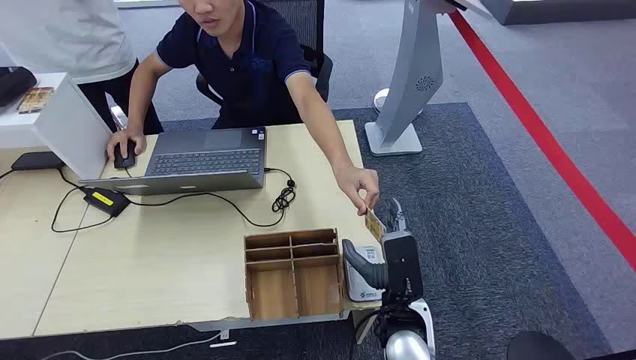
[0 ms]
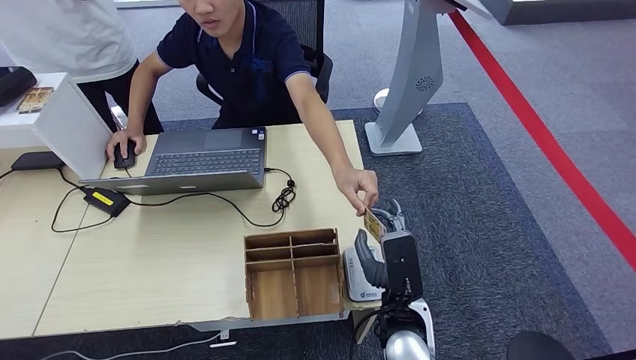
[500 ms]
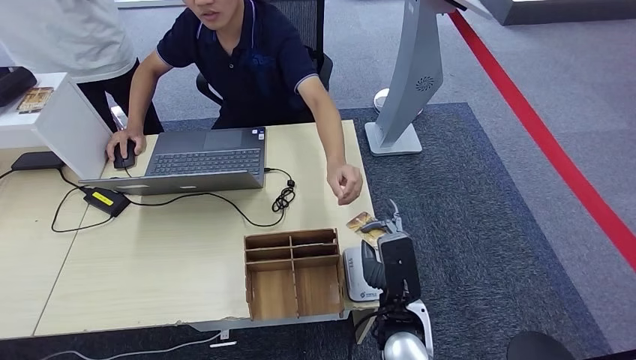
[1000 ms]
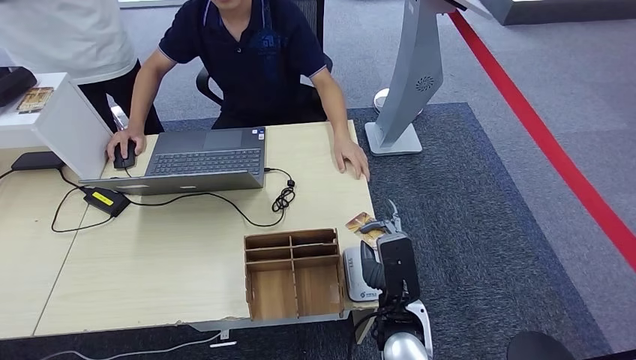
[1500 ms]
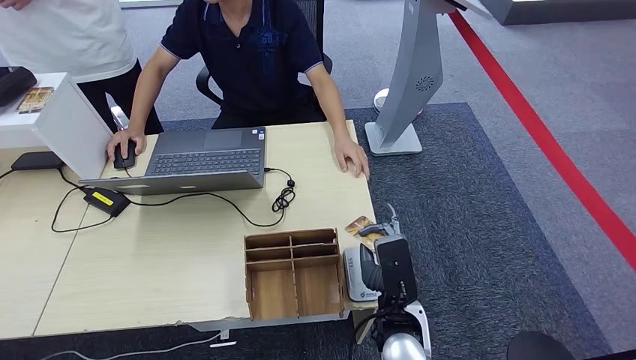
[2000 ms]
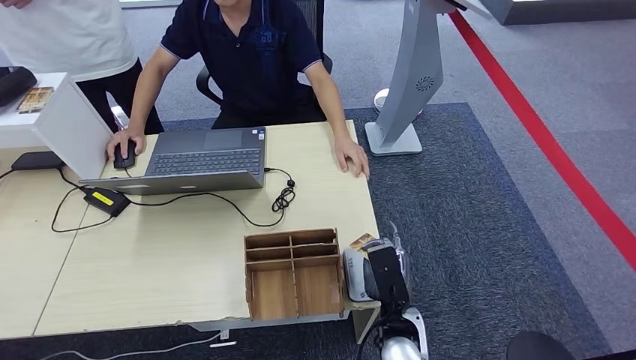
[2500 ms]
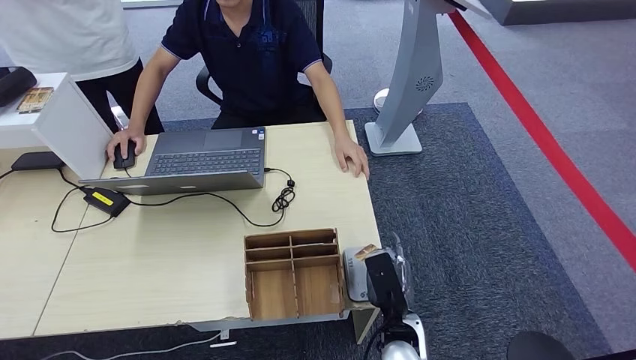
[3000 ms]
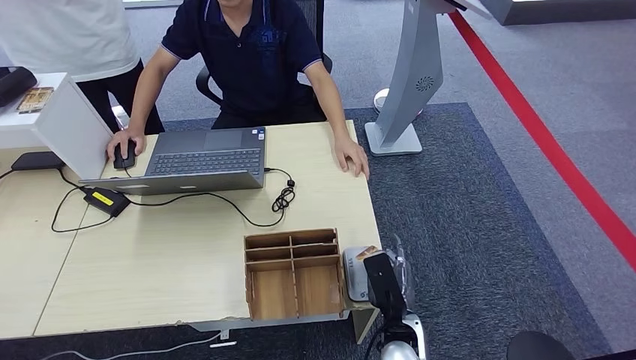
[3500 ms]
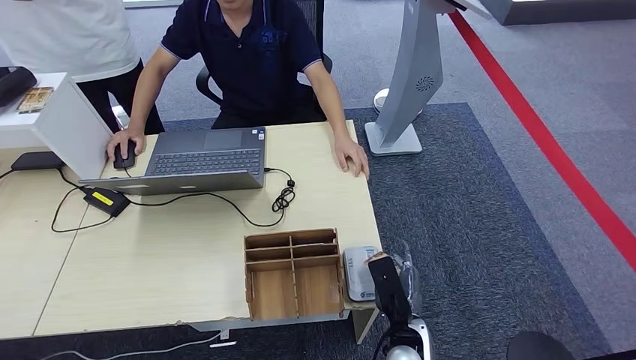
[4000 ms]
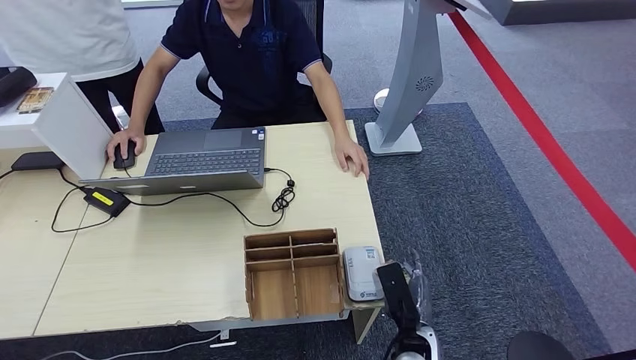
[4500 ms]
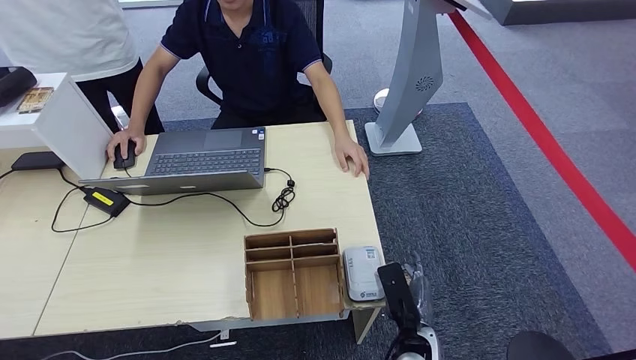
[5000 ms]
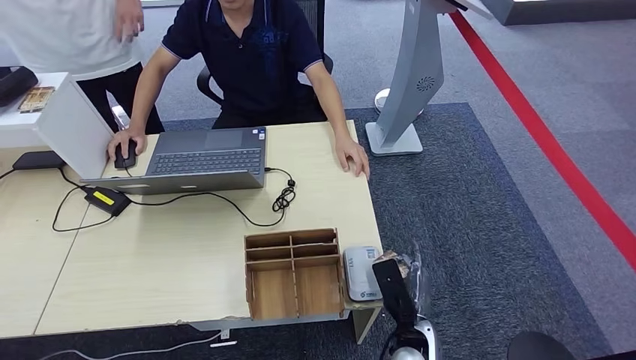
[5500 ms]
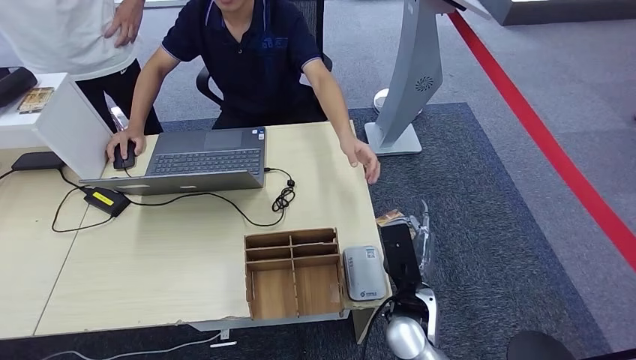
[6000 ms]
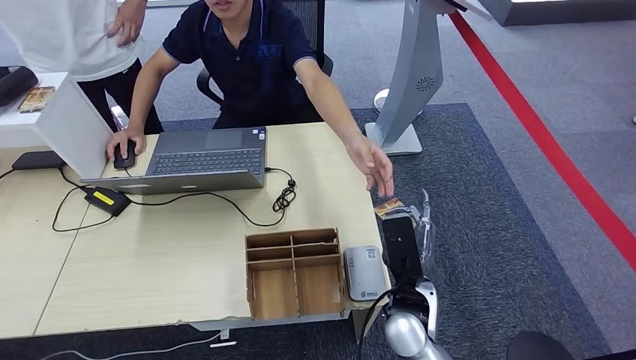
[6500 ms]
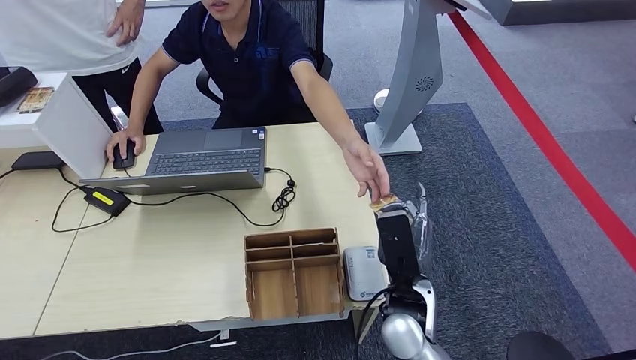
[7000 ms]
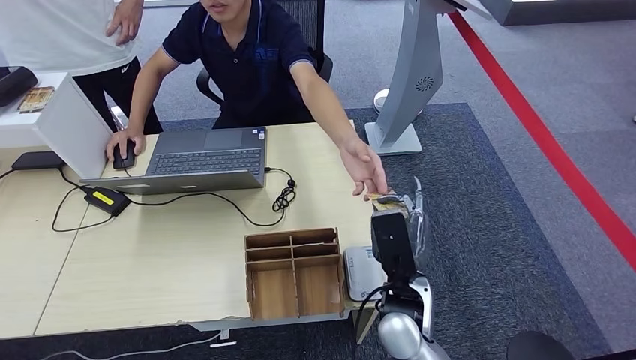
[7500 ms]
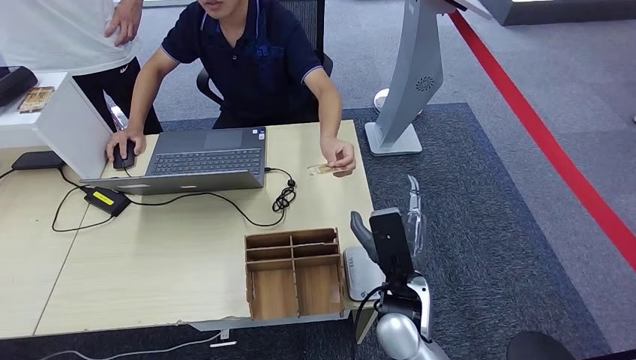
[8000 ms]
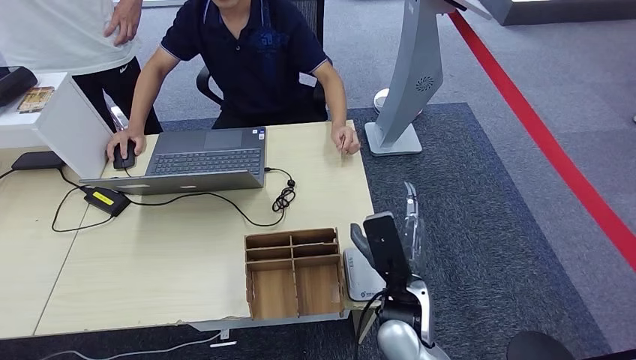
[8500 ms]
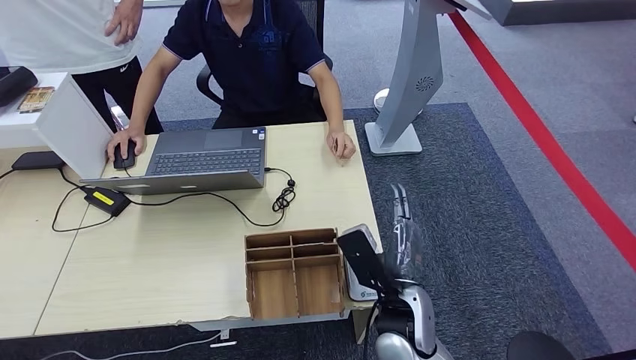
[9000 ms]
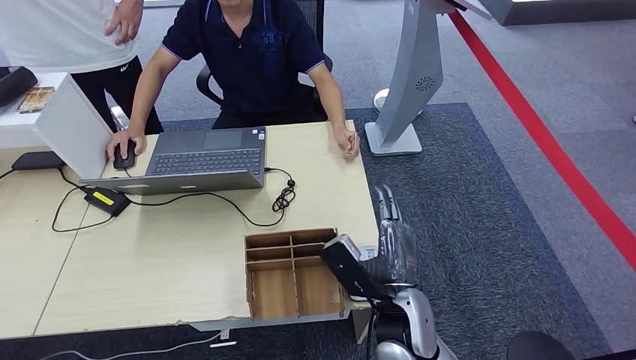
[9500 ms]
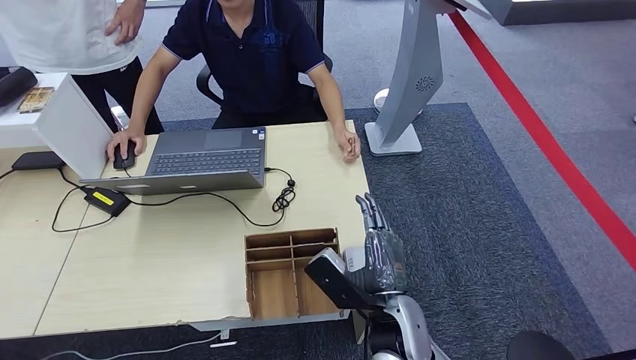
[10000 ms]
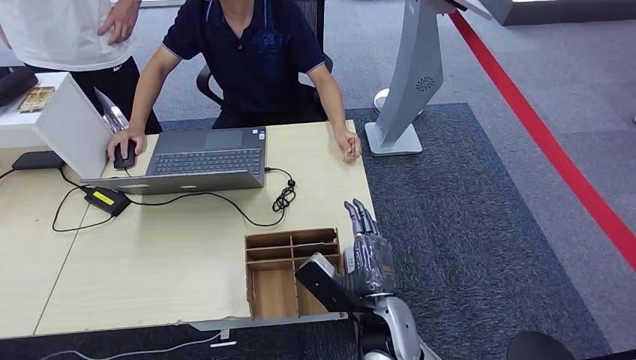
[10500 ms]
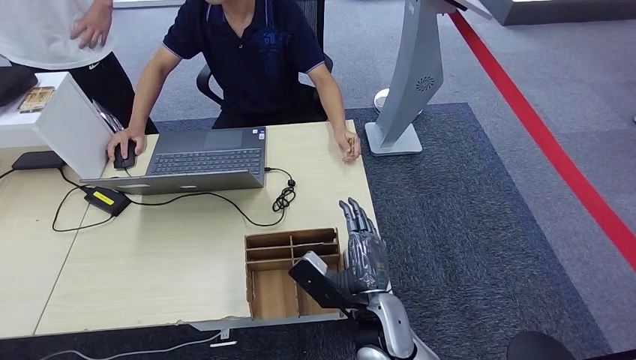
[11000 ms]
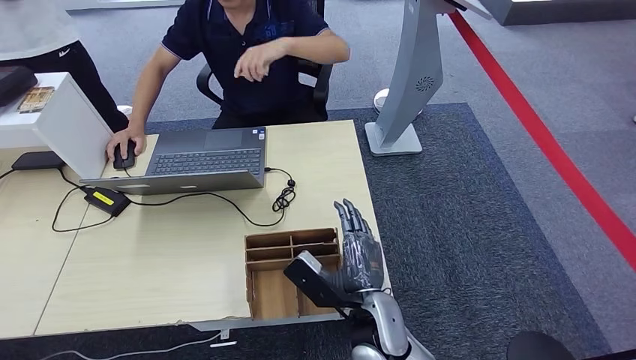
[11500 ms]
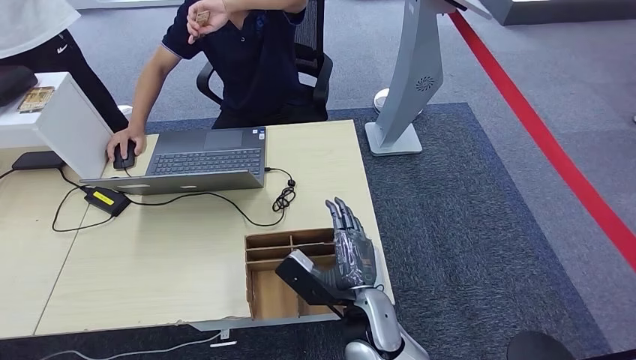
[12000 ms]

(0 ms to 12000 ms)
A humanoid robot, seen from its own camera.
Step, 0 ms - 1000 ms: Take the ID card from the person's hand.
Step, 1500 ms - 6000 ms: Place the ID card on the card reader.
Step, 6500 ms - 9500 ms: Hand the ID card to the person.
2000 ms - 4000 ms: The right hand goes approximately 10 cm downward.
4000 ms - 6000 ms: The right hand is displaced upward by roughly 5 cm. The left hand moves to the right, approximately 15 cm.
6000 ms - 8000 ms: The right hand changes place by about 5 cm.
10000 ms - 12000 ms: The hands move only a little.

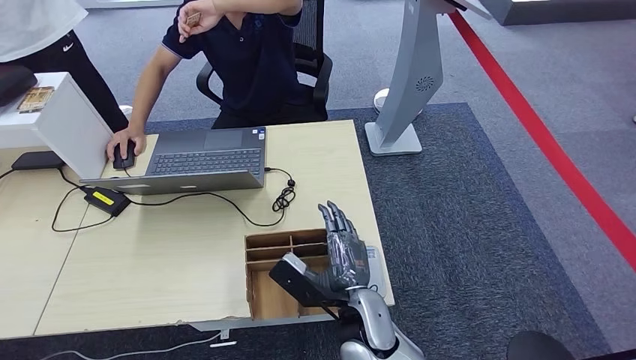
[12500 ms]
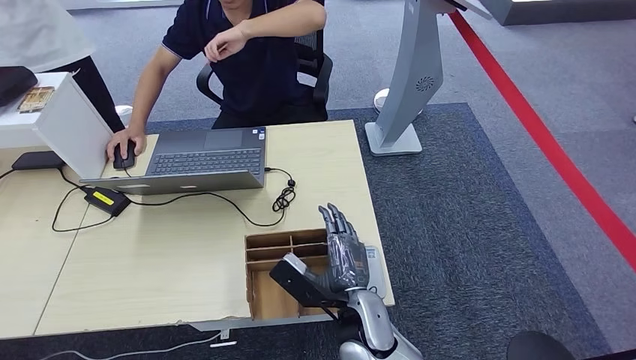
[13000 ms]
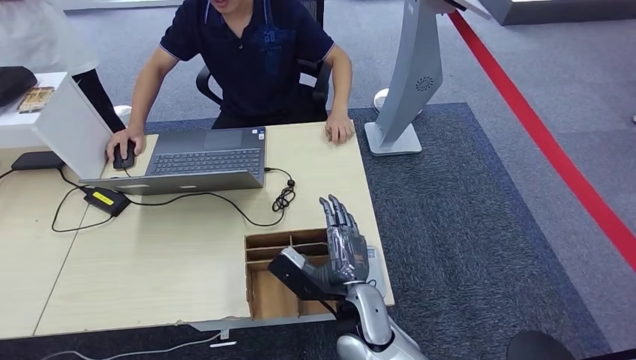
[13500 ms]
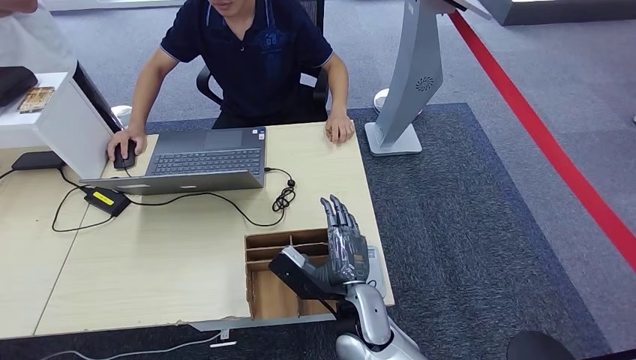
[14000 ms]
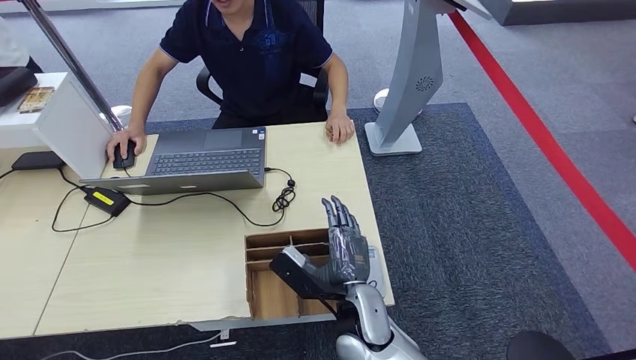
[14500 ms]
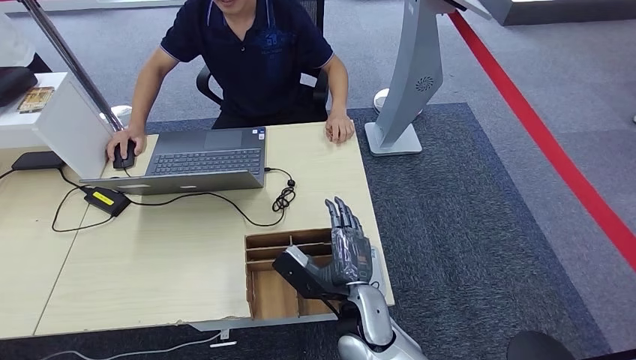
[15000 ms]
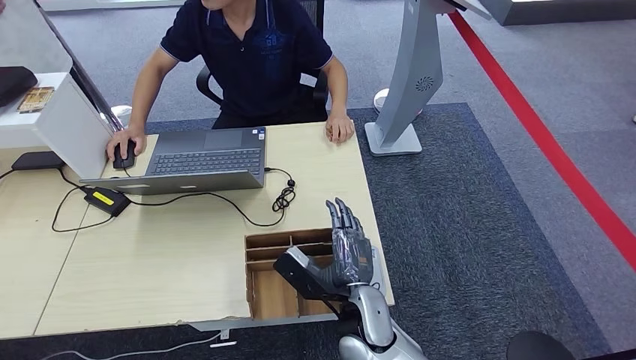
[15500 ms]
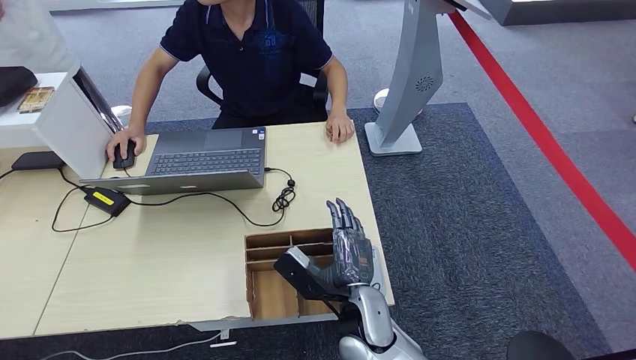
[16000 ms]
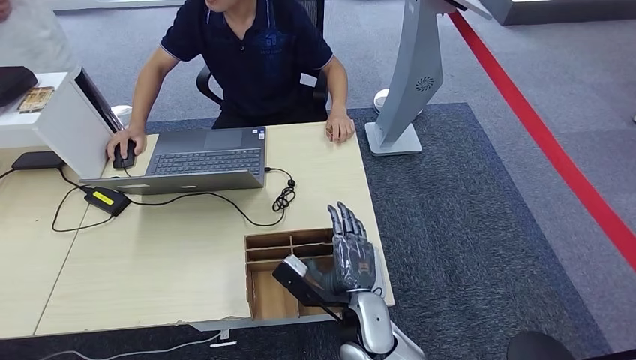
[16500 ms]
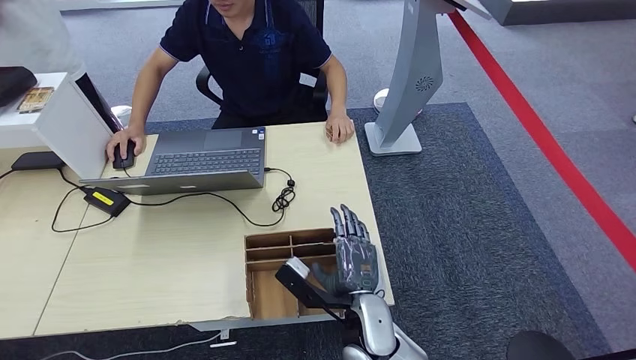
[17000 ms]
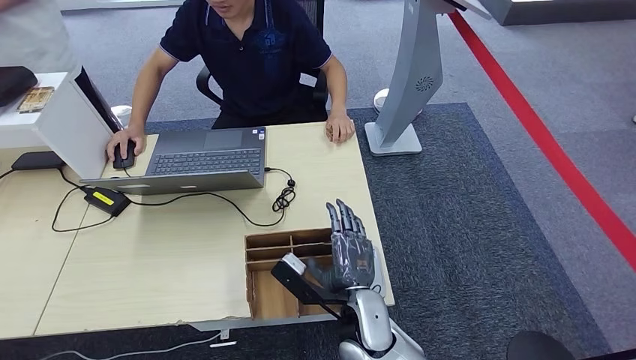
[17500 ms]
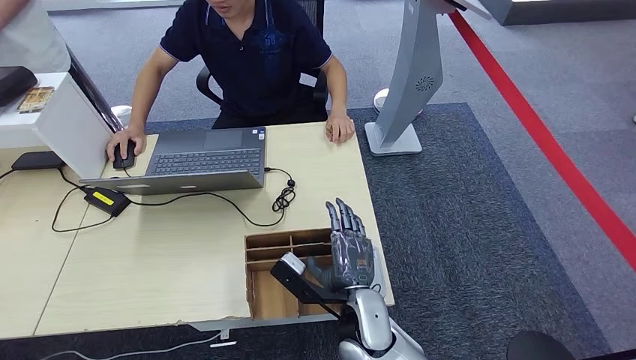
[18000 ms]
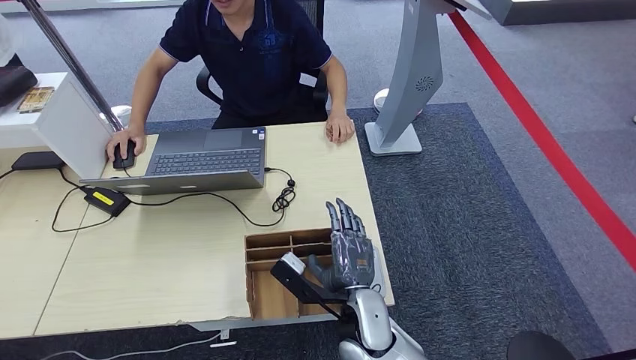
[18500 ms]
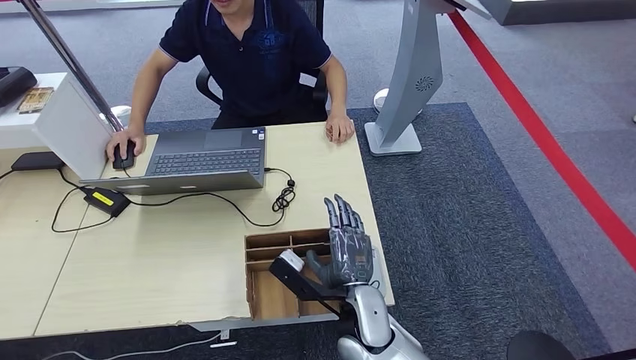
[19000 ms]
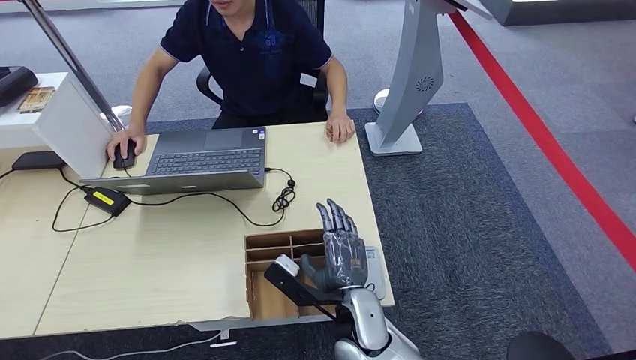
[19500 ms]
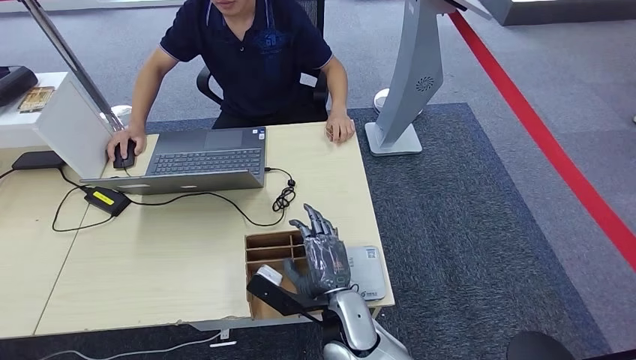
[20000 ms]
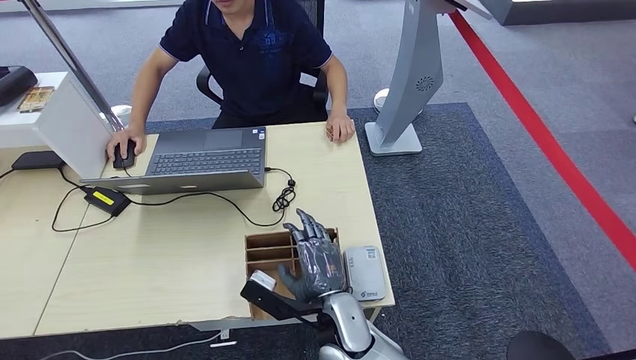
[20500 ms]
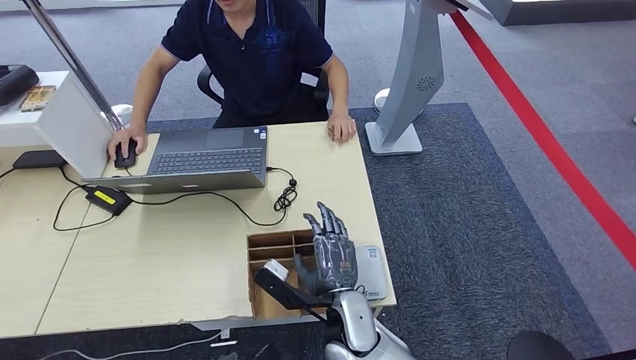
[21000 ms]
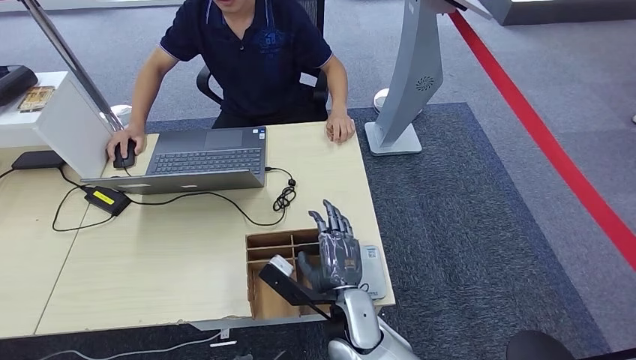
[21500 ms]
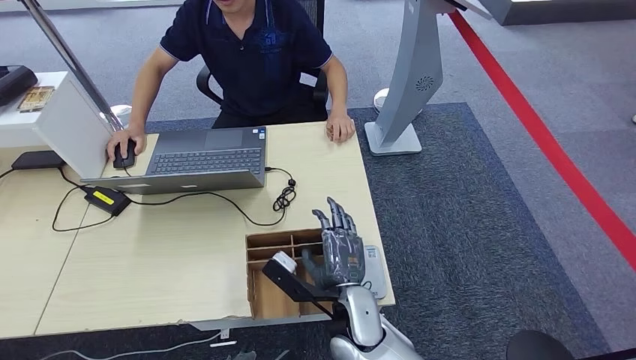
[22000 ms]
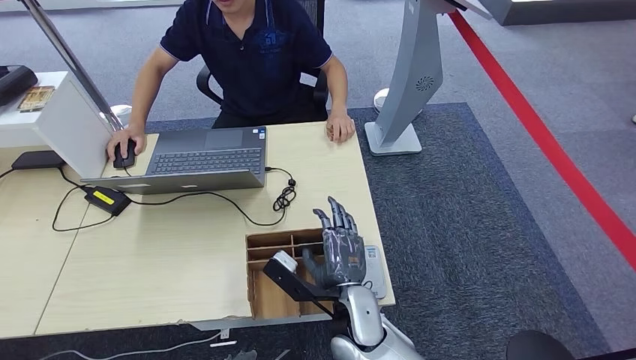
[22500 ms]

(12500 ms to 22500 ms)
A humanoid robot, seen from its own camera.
12500 ms - 14500 ms: Both hands stay about where they are.
14500 ms - 16500 ms: The hands move only a little.
16500 ms - 18500 ms: The two hands keep their place.
18500 ms - 20500 ms: The left hand moves to the left, approximately 15 cm.
20500 ms - 22500 ms: The left hand is displaced to the right by roughly 15 cm.
